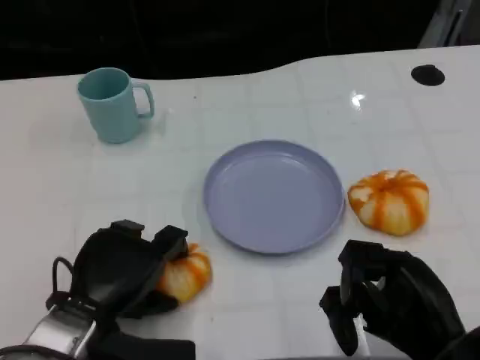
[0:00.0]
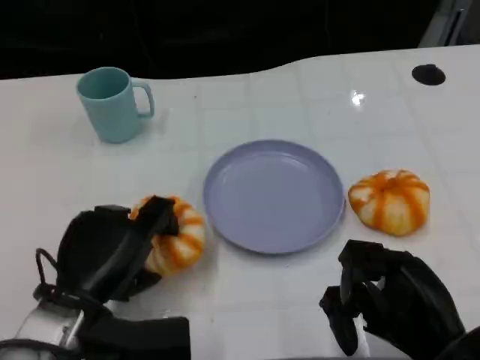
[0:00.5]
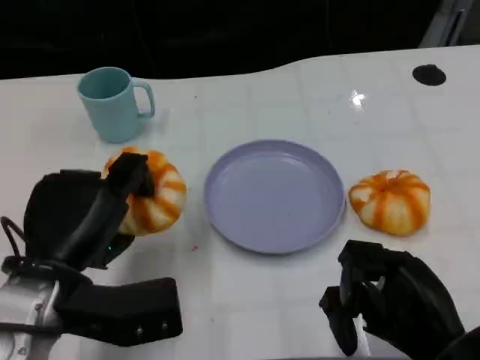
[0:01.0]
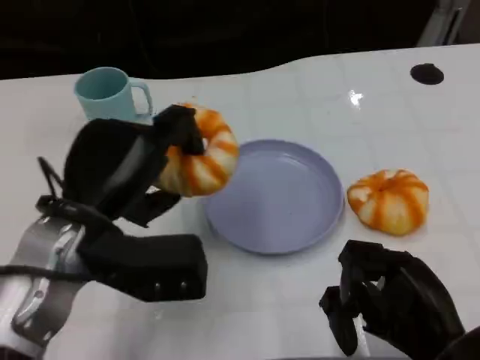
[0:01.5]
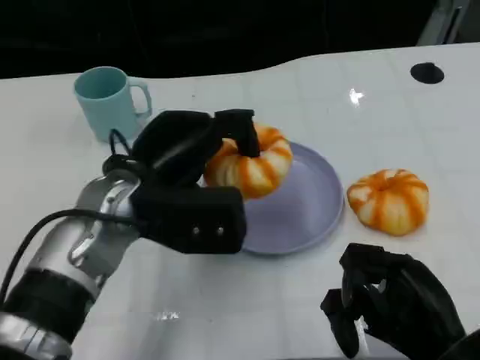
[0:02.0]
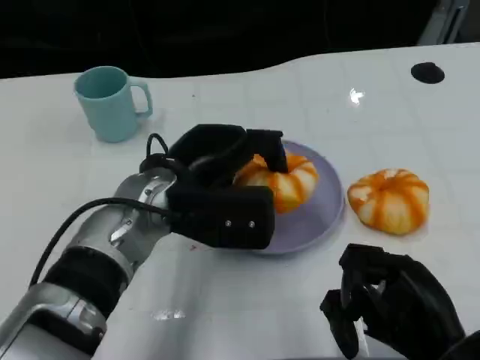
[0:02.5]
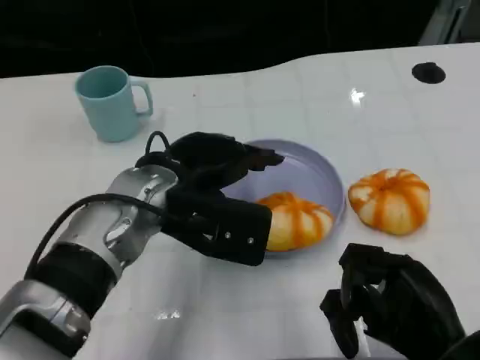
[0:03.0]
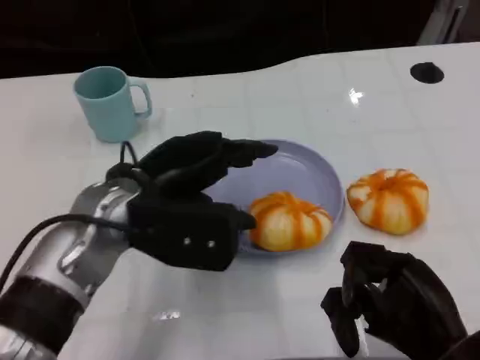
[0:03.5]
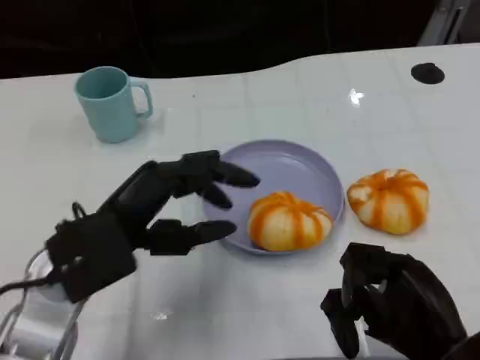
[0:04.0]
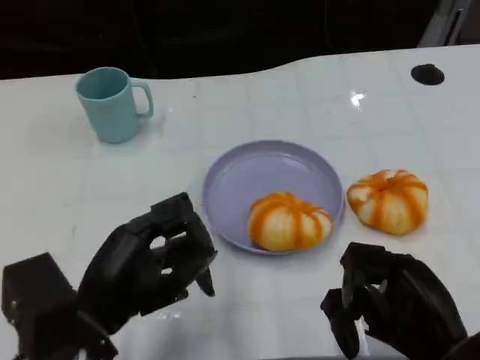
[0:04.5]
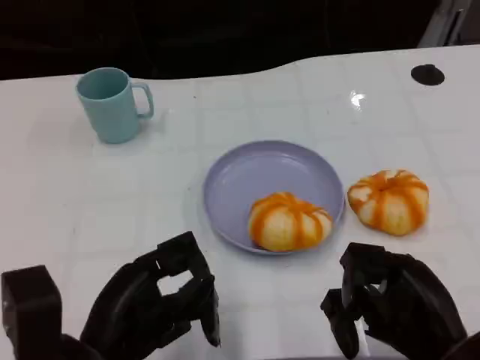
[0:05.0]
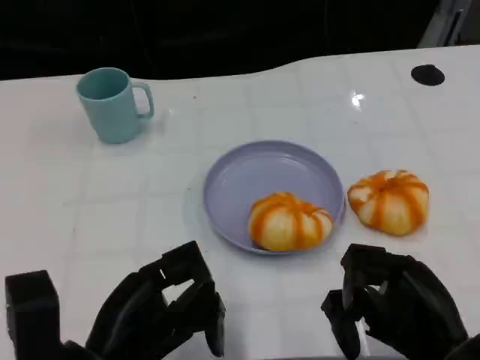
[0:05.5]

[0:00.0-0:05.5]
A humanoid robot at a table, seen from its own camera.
Task of the whole recording: Grasp the bread from the table and place it into the plate.
0:00.0 to 0:02.0: The left hand travels upward, forward and to the right by about 15 cm.
0:03.5 to 0:05.5: The left hand goes about 15 cm backward and downward.

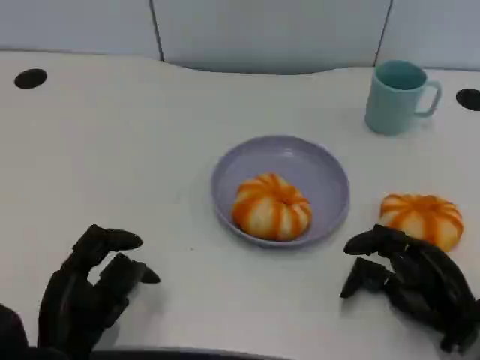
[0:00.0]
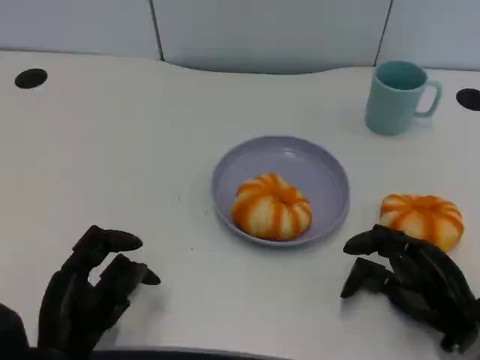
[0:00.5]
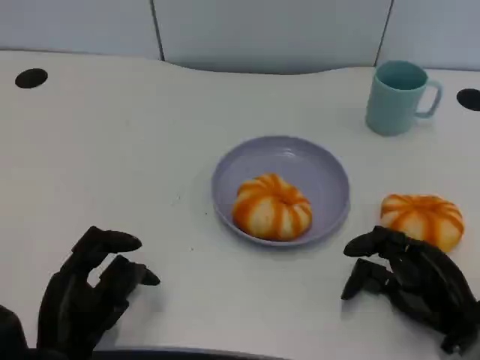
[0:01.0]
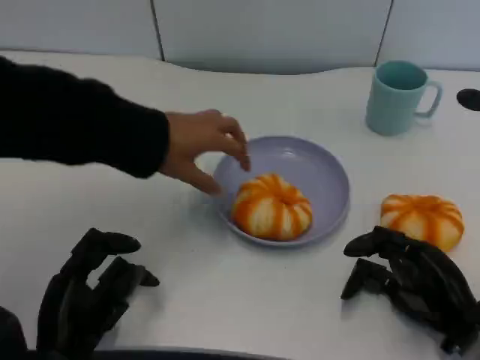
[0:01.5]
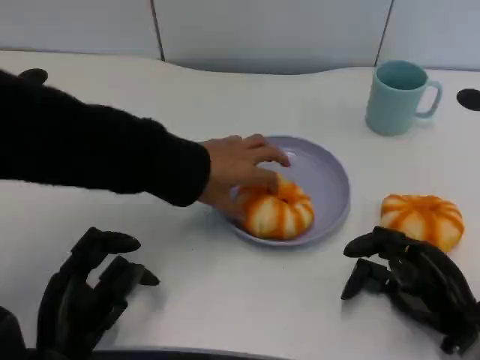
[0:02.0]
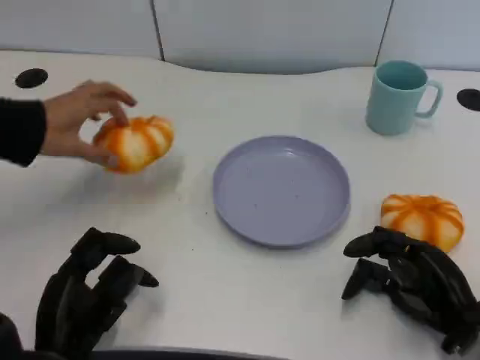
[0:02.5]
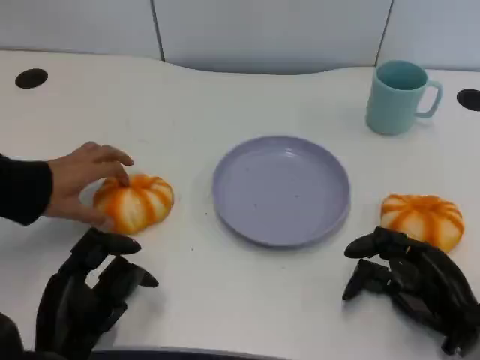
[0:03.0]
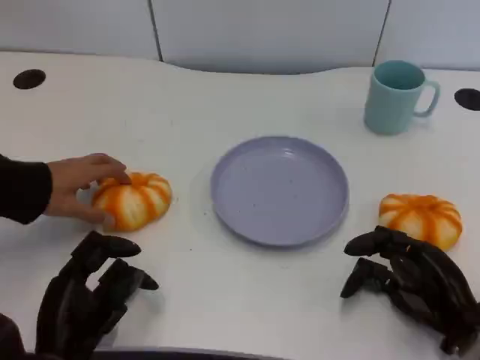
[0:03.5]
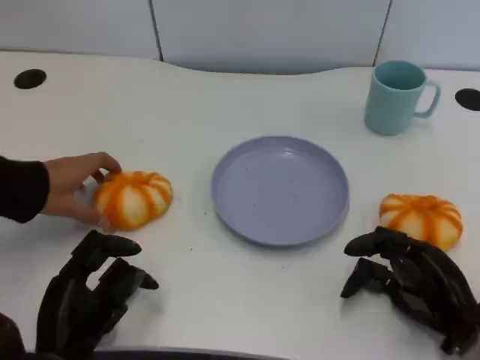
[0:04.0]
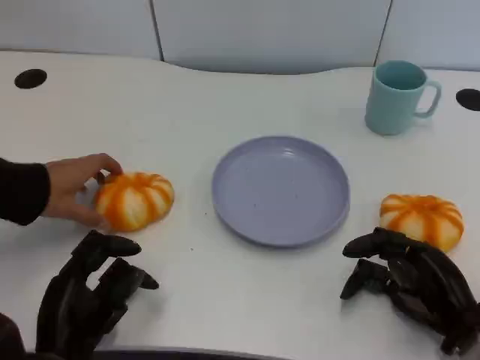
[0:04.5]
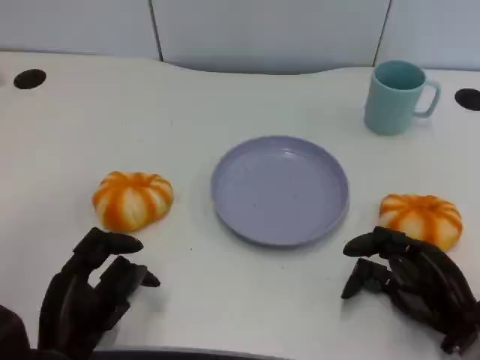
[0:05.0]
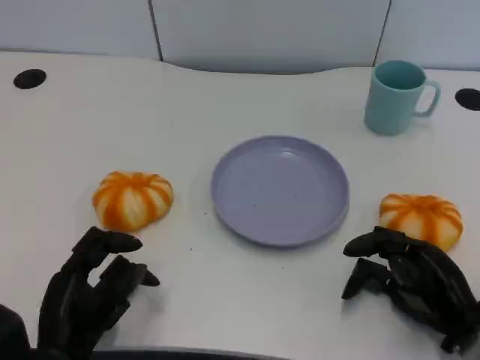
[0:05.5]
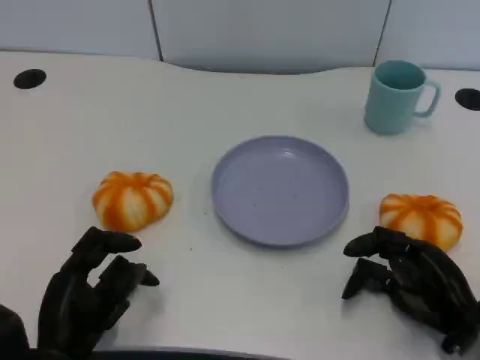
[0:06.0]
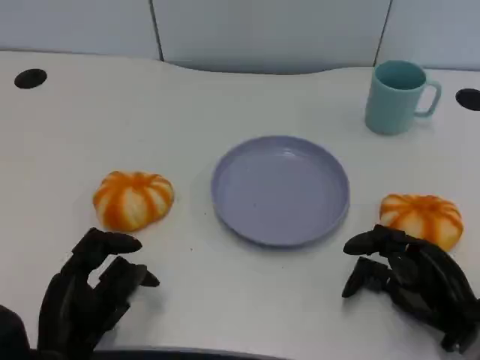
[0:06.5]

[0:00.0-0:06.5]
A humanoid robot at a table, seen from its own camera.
Task of the whole recording: Grasp the bread from the table and place it into the plate.
0:04.5 to 0:06.5: Both hands stay about where they are.

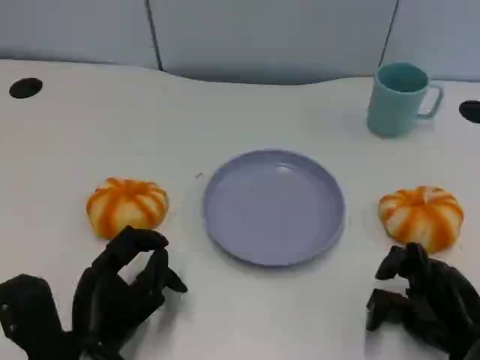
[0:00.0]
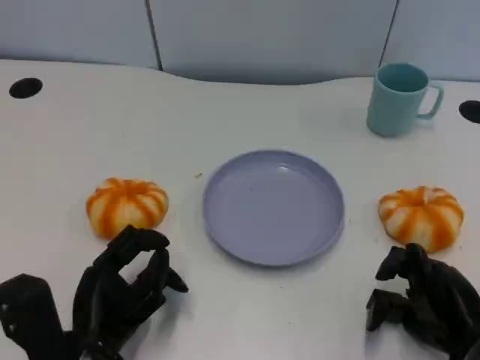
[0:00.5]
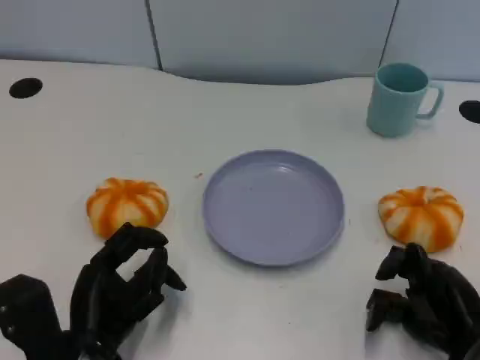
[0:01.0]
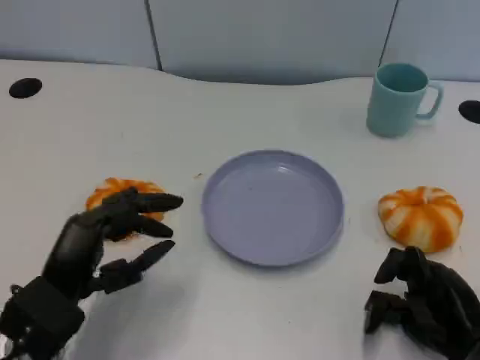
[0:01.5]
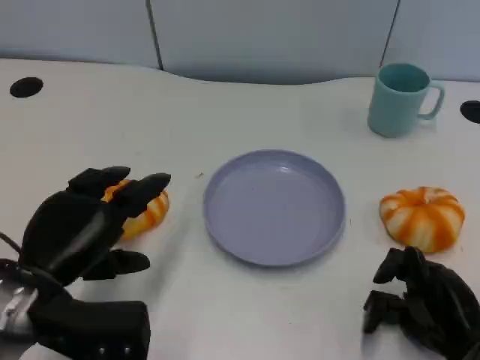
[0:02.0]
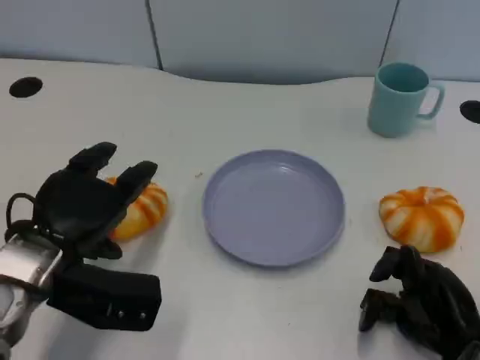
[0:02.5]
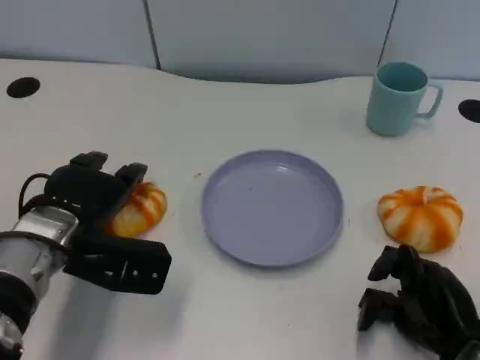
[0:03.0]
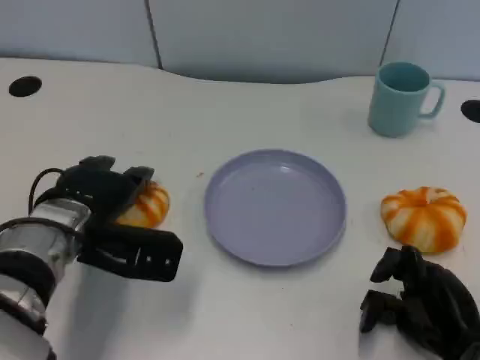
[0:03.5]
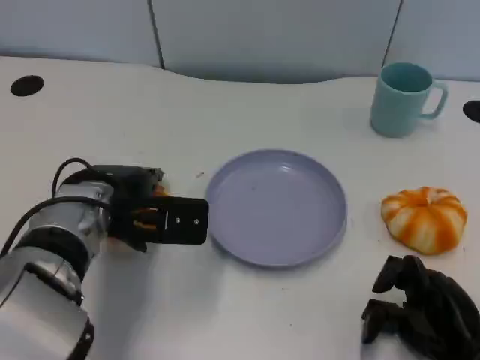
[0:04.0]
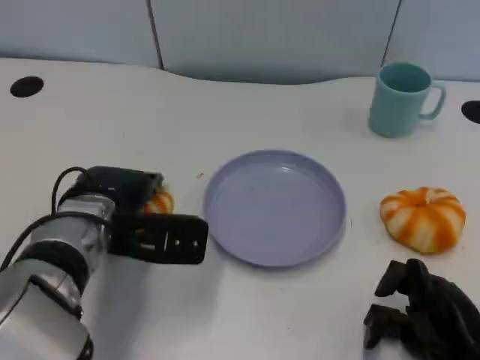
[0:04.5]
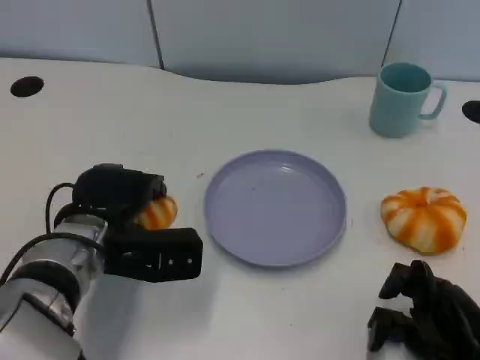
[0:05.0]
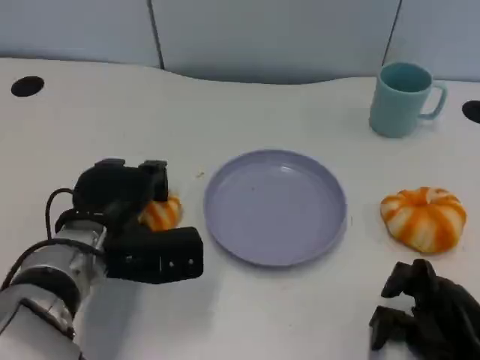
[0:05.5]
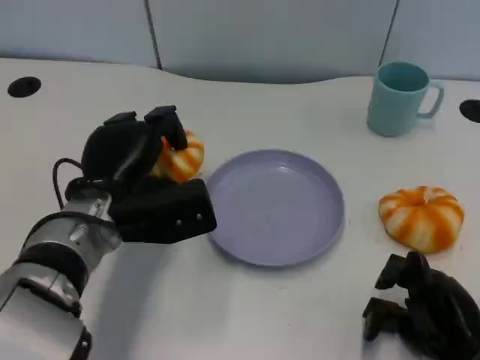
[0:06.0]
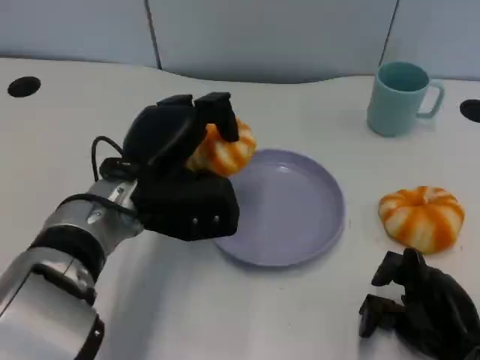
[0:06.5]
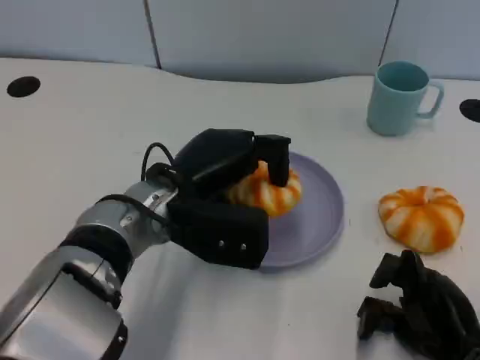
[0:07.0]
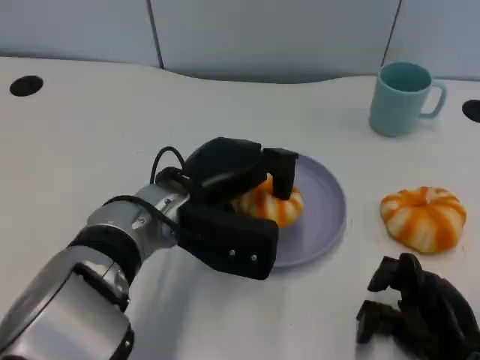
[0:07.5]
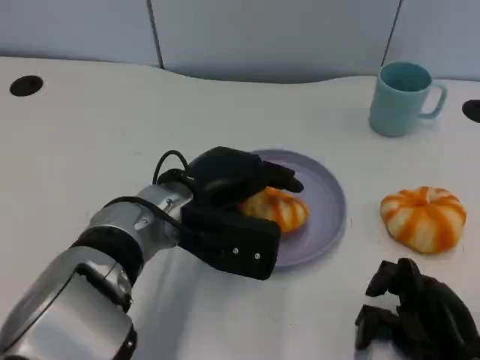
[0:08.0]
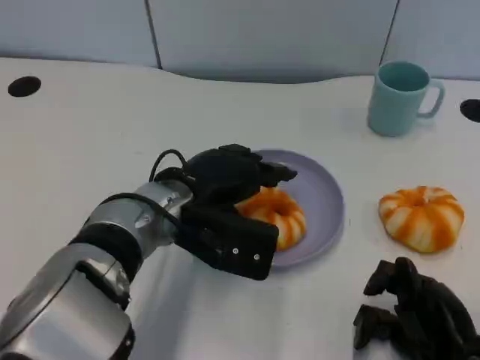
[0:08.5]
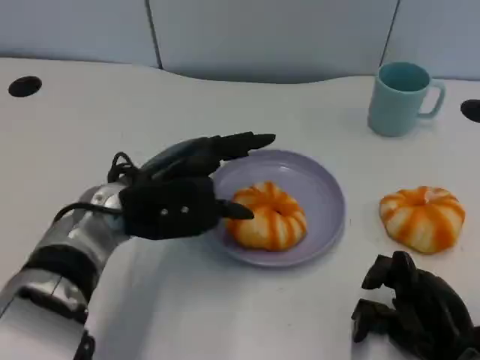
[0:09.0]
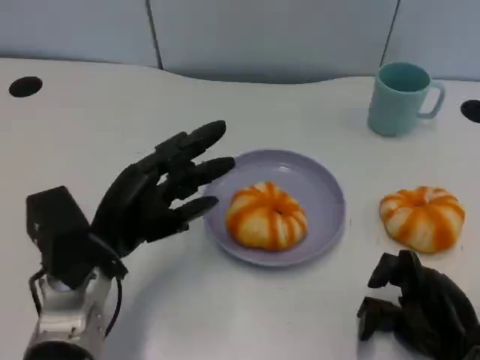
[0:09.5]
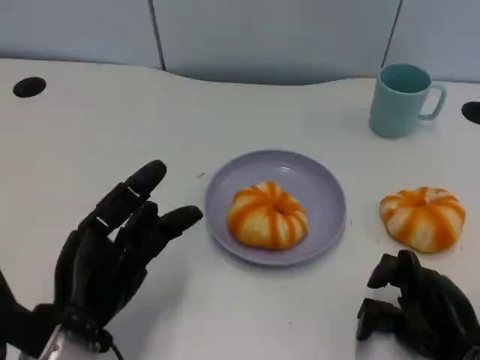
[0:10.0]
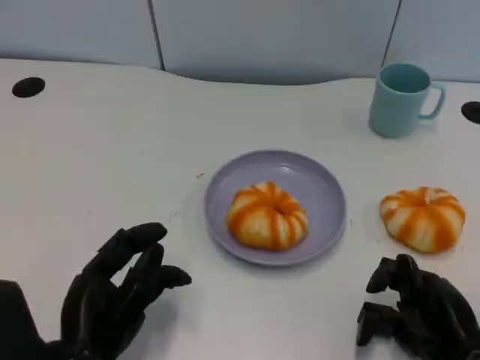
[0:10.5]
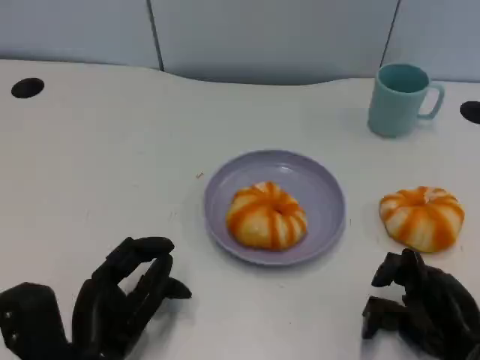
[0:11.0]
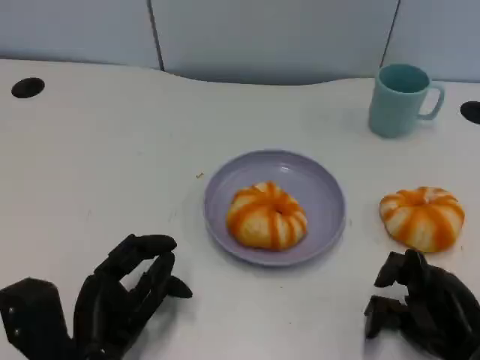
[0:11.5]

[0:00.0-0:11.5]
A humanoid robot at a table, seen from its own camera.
Task of the whole recording: Grasp the bread from the table and place it into the plate.
0:00.0 to 0:02.0: The left hand travels upward by some 10 cm.
0:02.0 to 0:04.0: The left hand travels forward and to the right by about 10 cm.
0:06.0 to 0:07.5: The left hand travels to the right by approximately 5 cm.
0:07.5 to 0:09.5: The left hand travels to the left by roughly 10 cm.
0:09.5 to 0:11.5: The left hand moves backward and downward, about 10 cm.

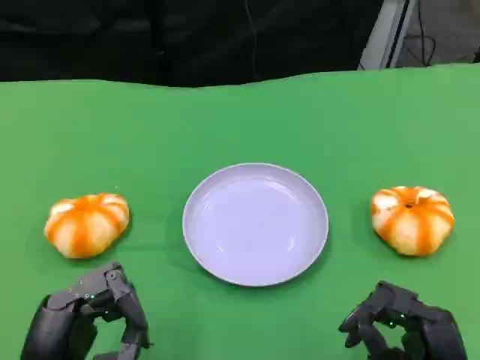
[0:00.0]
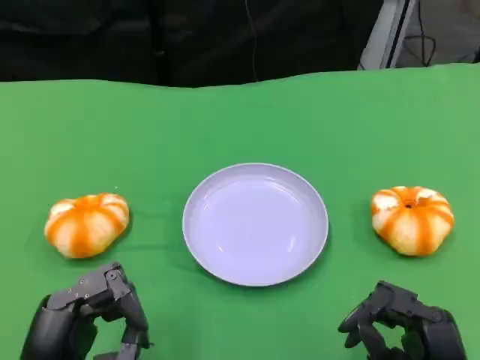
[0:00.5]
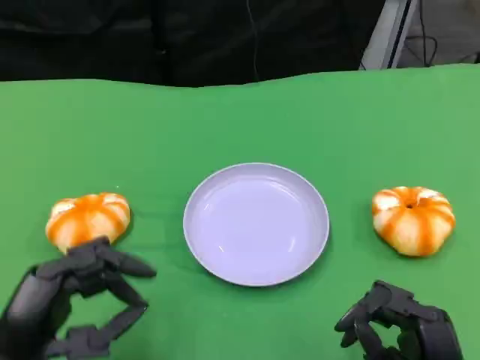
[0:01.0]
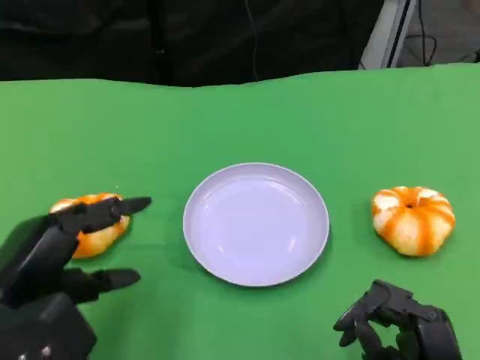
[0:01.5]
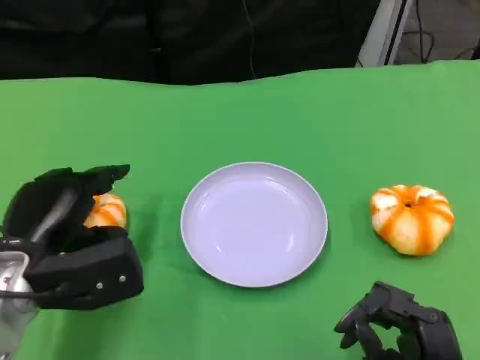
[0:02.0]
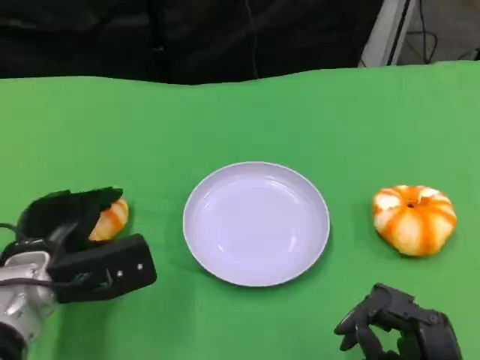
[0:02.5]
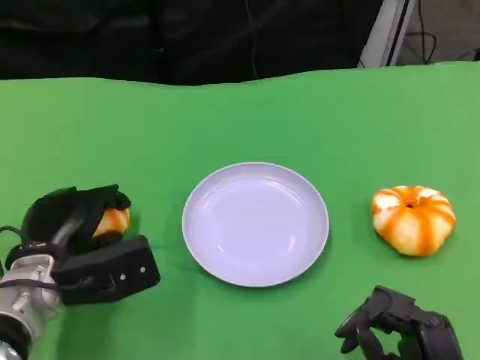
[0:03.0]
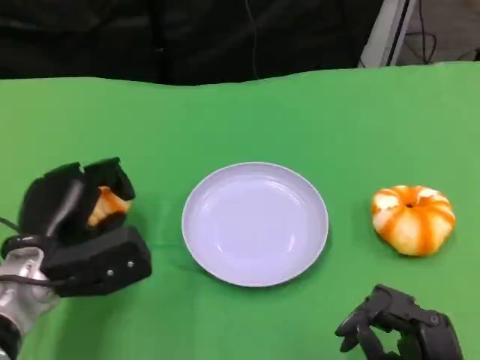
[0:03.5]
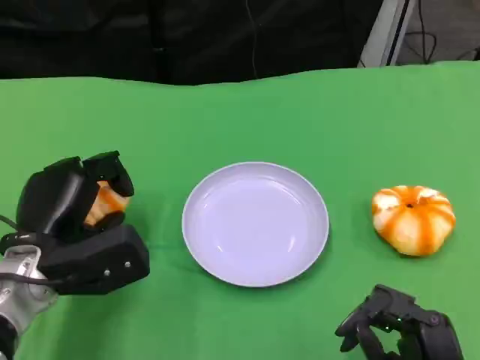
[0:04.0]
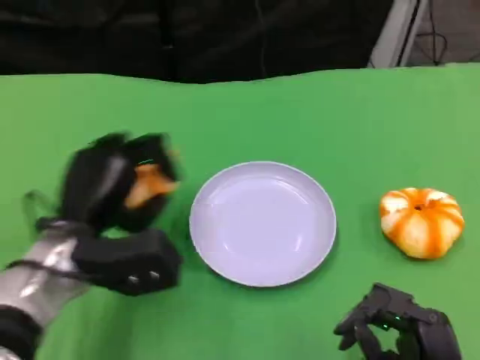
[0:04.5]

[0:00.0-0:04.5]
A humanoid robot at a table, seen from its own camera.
Task of the whole recording: Grasp the bread from the table and place it into the plate.
0:00.0 to 0:02.0: The left hand heads forward, covering approximately 15 cm.
0:02.0 to 0:04.5: The left hand shifts roughly 5 cm to the right.
